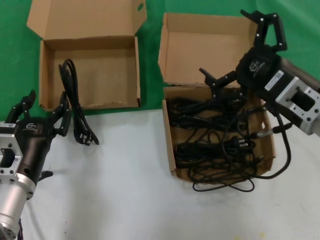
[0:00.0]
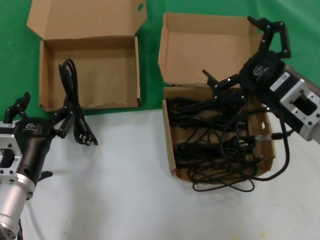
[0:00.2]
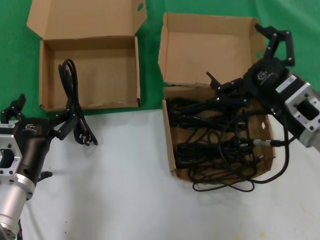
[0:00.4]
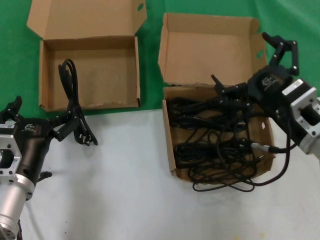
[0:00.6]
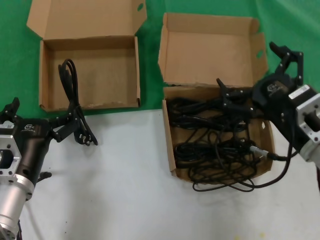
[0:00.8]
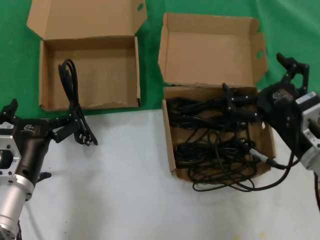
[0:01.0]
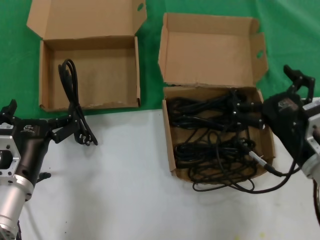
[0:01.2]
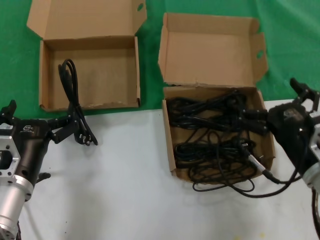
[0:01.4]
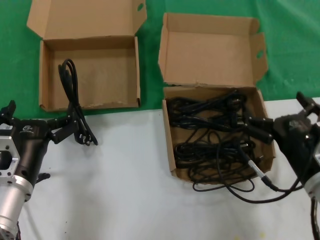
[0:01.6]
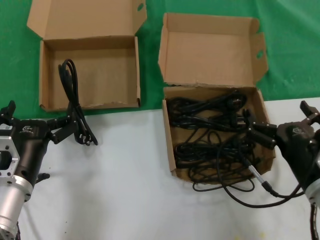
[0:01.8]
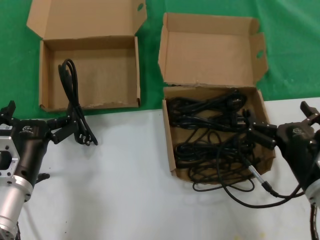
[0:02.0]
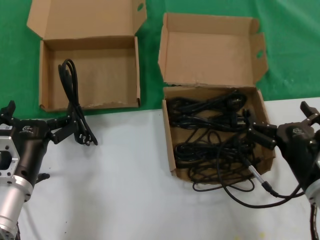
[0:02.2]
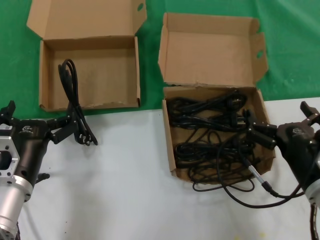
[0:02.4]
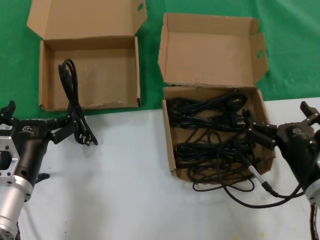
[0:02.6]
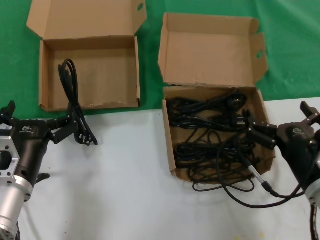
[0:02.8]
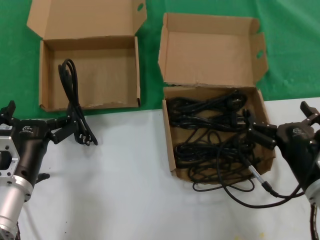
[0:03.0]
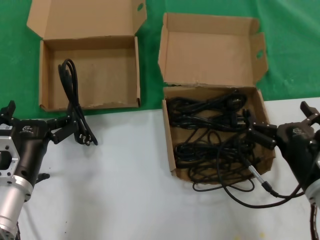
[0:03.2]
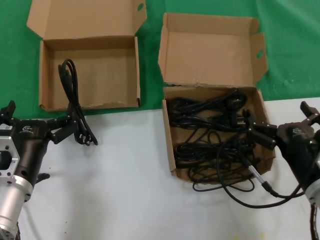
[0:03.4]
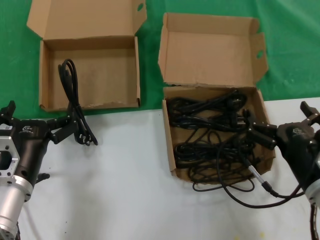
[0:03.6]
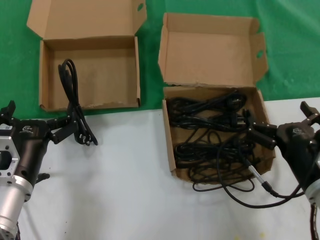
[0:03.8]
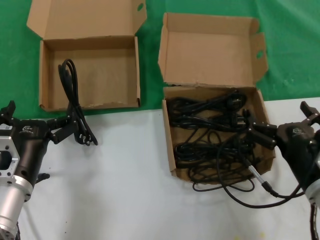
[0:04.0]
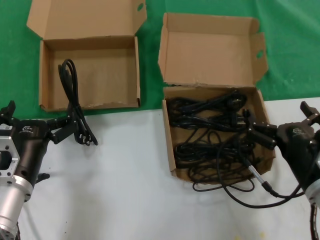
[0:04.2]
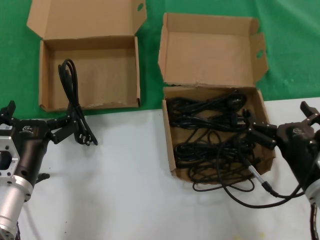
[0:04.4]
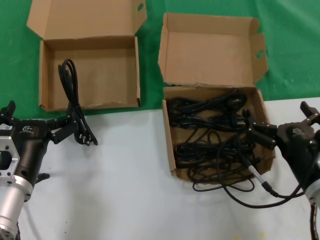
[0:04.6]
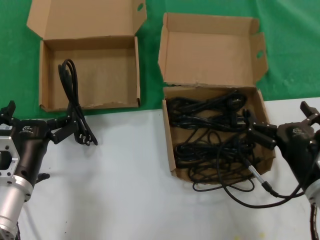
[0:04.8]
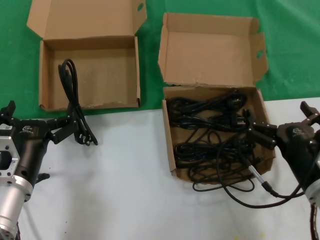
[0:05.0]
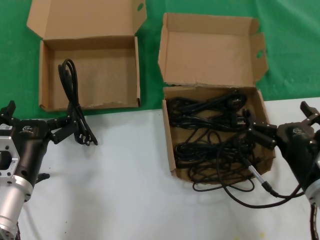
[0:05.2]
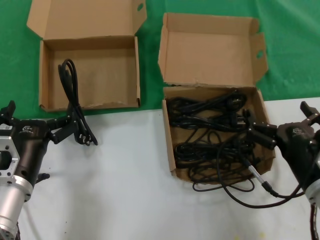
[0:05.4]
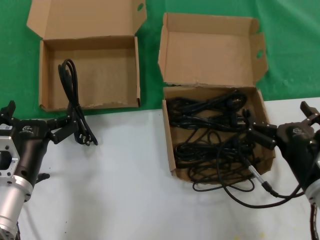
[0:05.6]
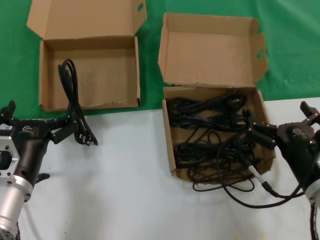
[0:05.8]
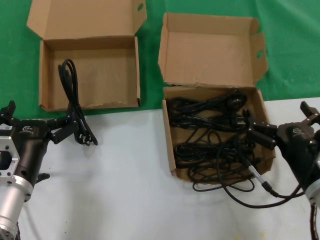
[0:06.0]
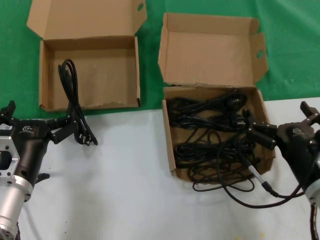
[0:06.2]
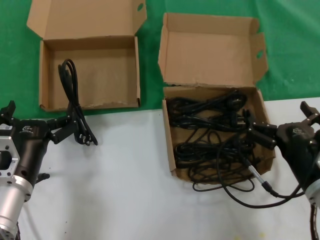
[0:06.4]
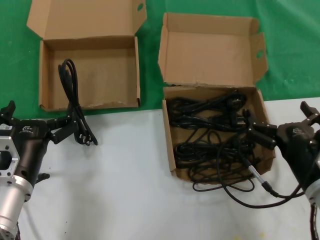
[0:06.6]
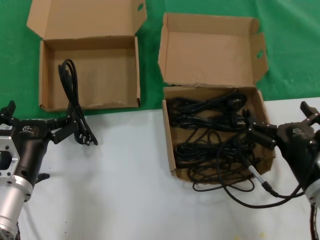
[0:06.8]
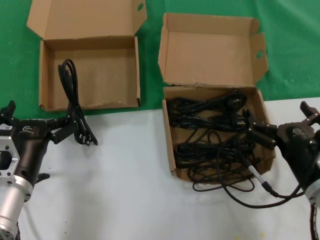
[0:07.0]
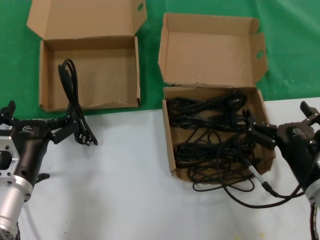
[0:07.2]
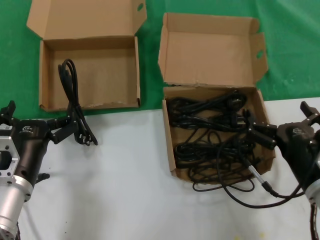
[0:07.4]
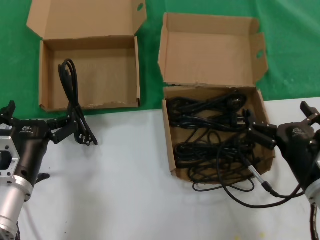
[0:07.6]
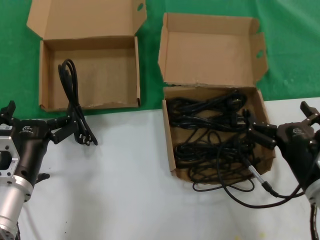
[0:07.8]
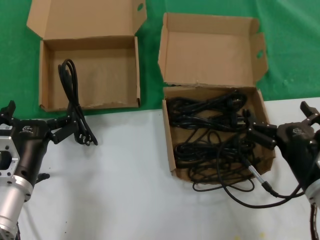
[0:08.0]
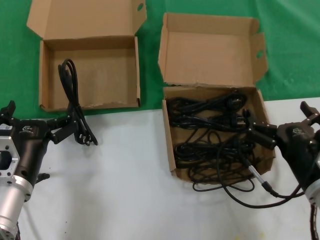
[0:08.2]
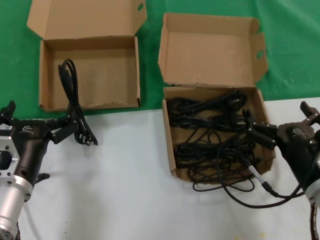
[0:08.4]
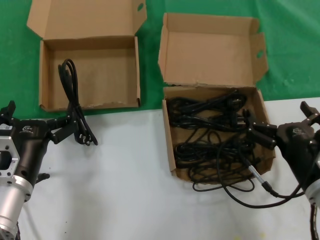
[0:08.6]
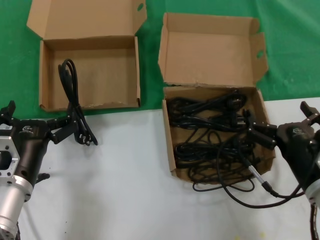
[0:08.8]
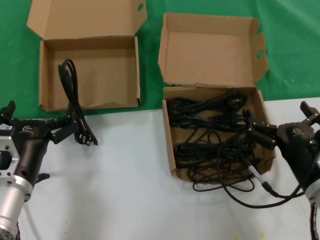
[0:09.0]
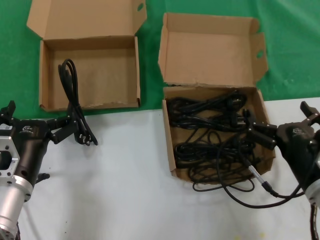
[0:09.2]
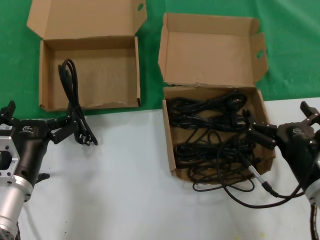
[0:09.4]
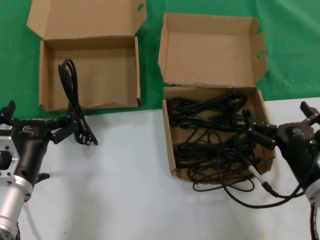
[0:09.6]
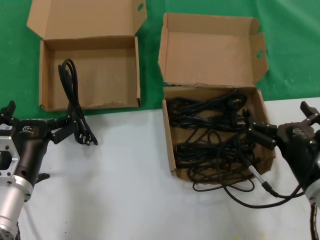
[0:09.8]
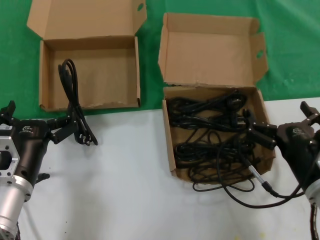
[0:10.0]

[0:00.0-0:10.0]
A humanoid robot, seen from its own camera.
Task of the whole recording: take the parts from the box containing them and put them into an empty box.
0:00.0 to 0:01.4: The right hand is displaced downward by some 10 cm.
0:01.4 to 0:02.8: There are only small adjustments of the hands.
0:02.8 to 0:10.0: The two hands keep their place.

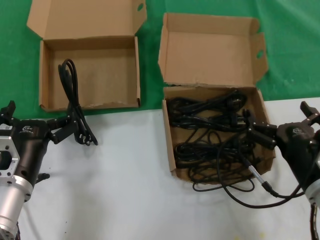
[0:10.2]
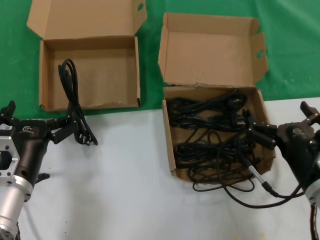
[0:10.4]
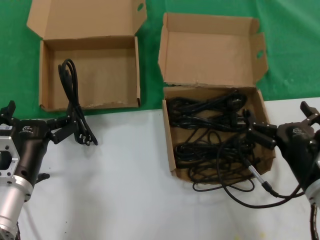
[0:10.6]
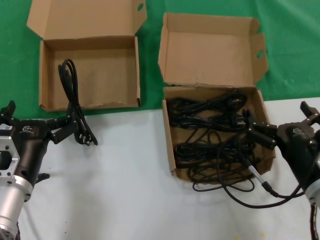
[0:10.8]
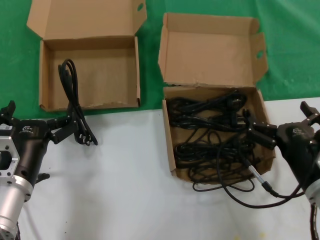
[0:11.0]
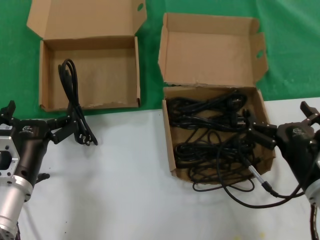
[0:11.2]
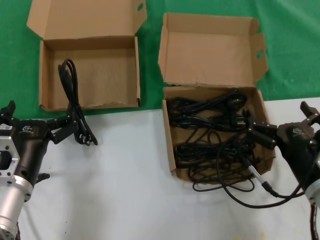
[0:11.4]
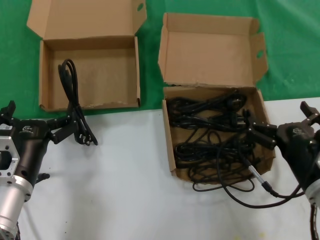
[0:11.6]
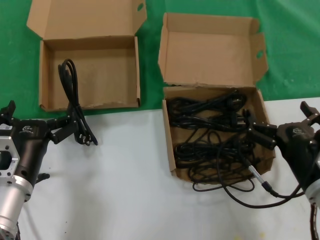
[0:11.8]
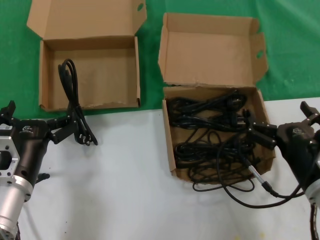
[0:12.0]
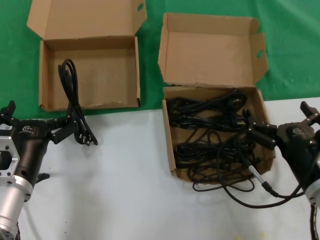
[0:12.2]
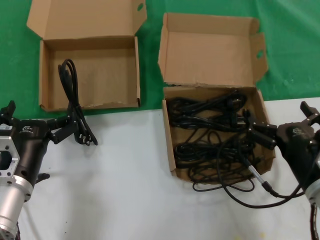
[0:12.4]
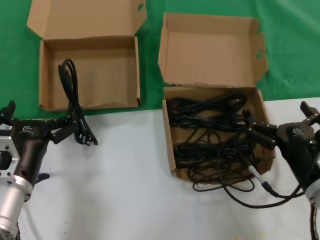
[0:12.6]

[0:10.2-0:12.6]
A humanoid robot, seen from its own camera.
Task of the whole recording: take the parts from the box containing them and put them into an empty box.
0:10.2 to 0:12.6: The two hands keep their place.
